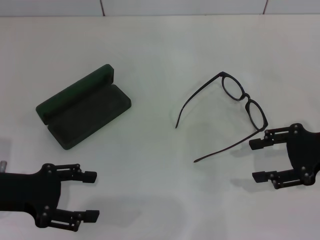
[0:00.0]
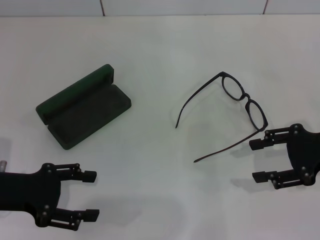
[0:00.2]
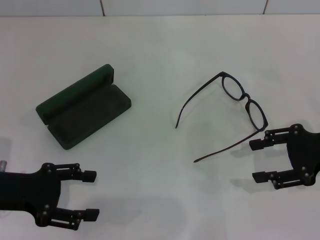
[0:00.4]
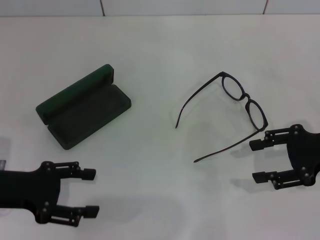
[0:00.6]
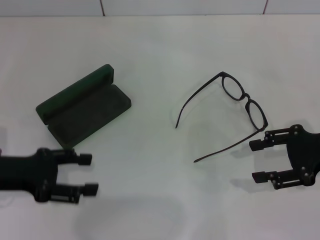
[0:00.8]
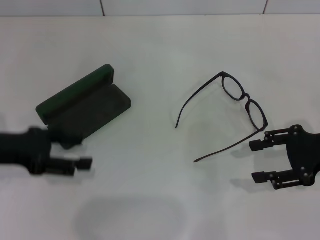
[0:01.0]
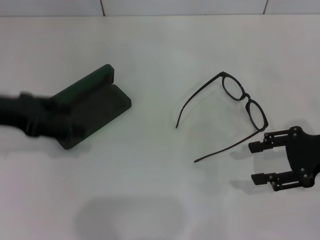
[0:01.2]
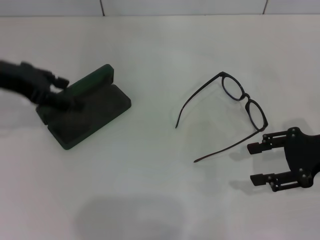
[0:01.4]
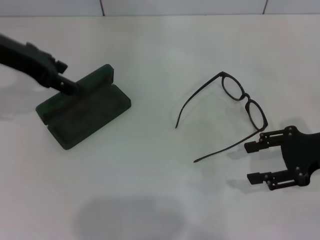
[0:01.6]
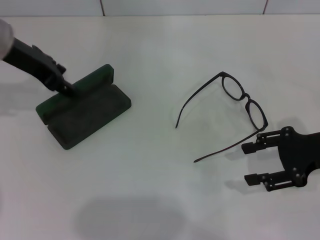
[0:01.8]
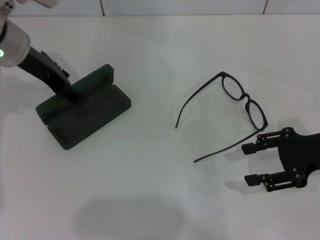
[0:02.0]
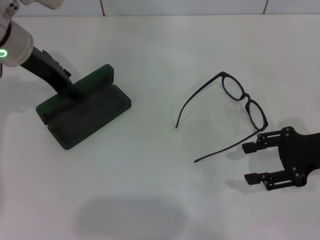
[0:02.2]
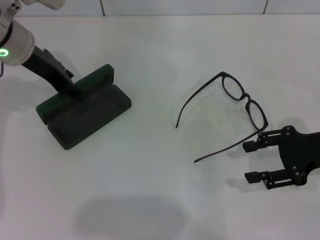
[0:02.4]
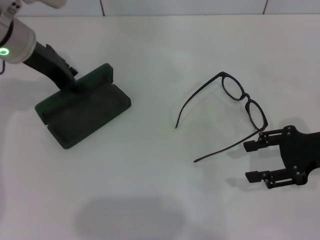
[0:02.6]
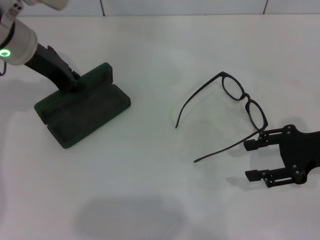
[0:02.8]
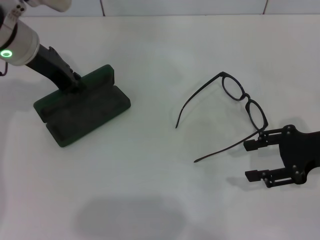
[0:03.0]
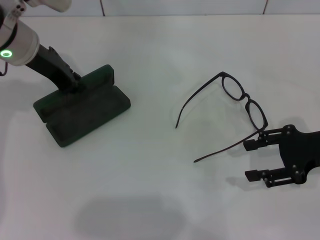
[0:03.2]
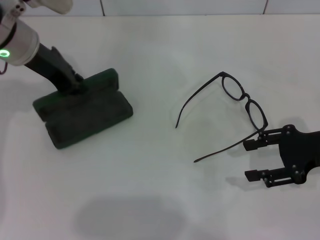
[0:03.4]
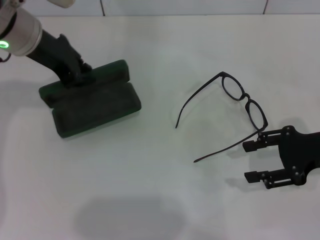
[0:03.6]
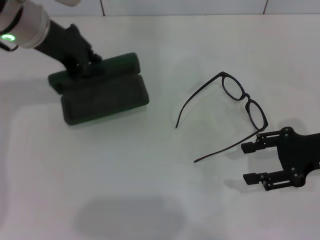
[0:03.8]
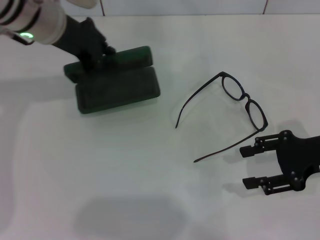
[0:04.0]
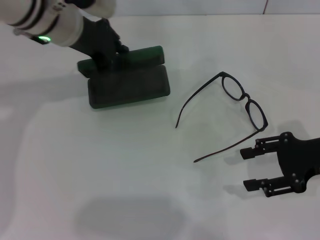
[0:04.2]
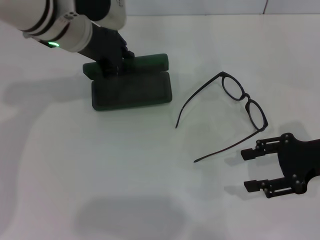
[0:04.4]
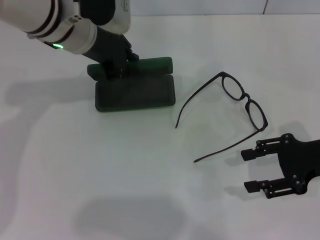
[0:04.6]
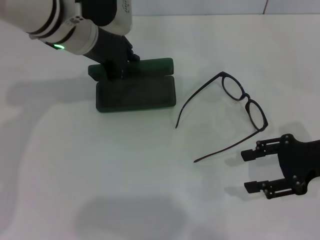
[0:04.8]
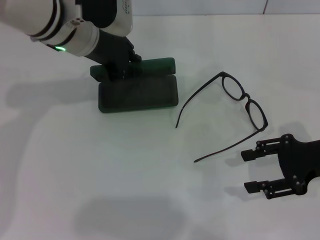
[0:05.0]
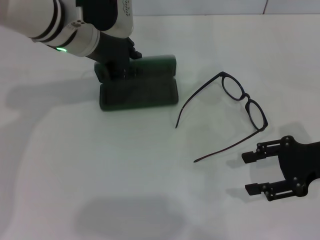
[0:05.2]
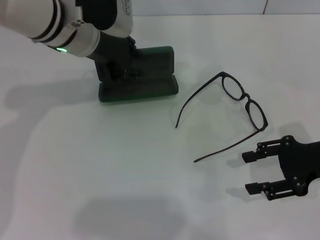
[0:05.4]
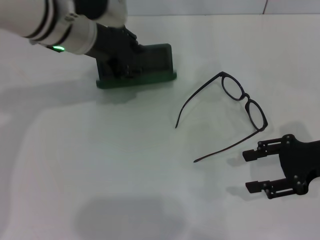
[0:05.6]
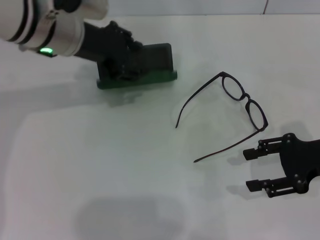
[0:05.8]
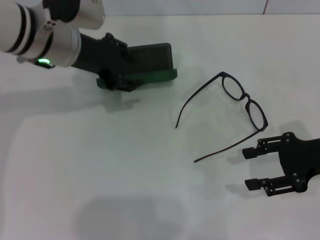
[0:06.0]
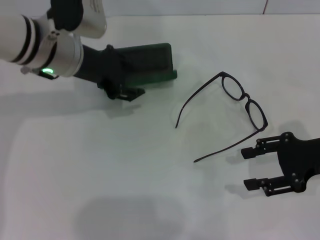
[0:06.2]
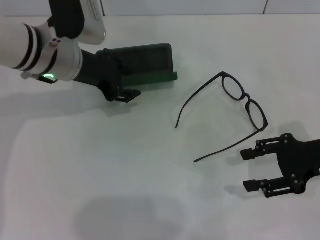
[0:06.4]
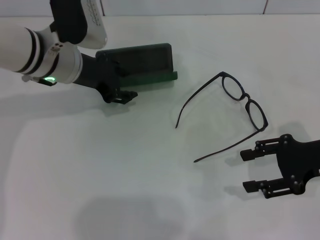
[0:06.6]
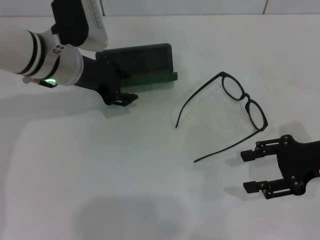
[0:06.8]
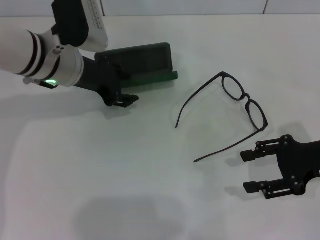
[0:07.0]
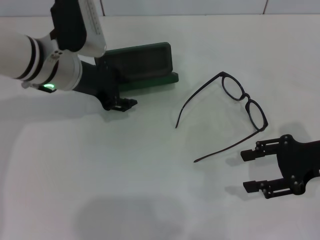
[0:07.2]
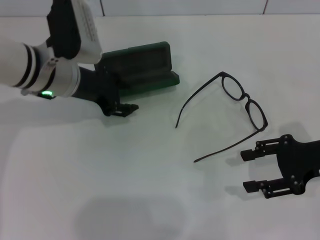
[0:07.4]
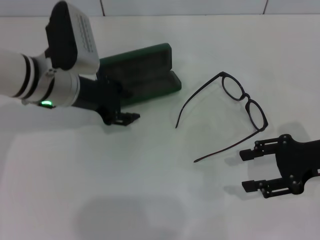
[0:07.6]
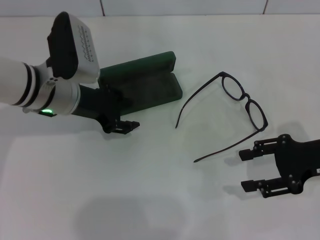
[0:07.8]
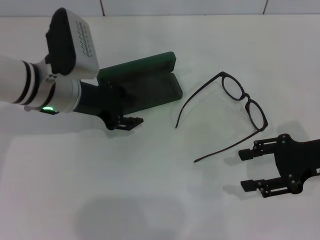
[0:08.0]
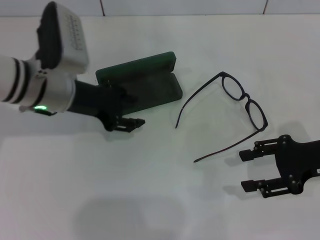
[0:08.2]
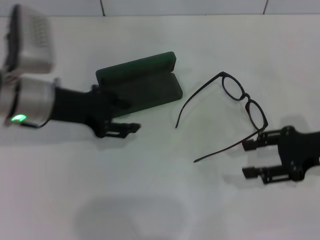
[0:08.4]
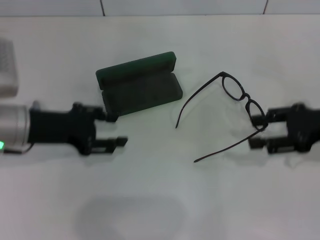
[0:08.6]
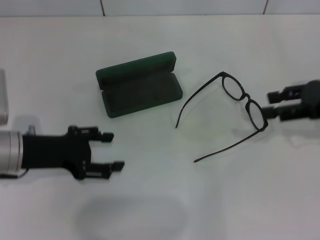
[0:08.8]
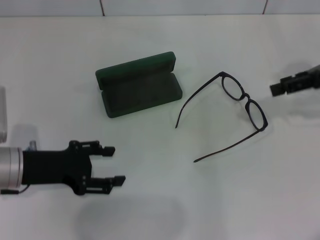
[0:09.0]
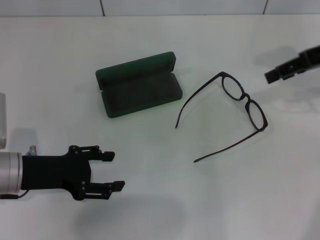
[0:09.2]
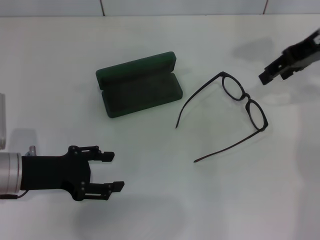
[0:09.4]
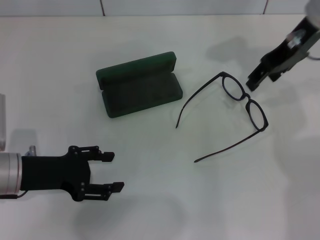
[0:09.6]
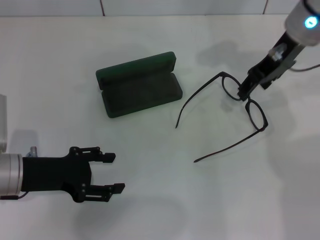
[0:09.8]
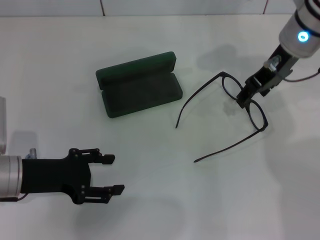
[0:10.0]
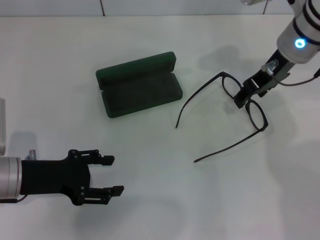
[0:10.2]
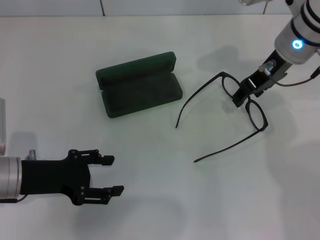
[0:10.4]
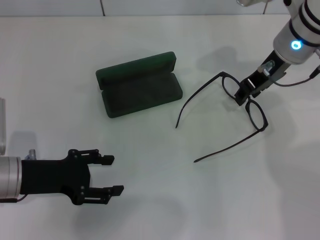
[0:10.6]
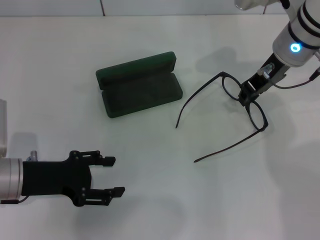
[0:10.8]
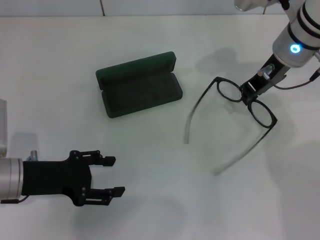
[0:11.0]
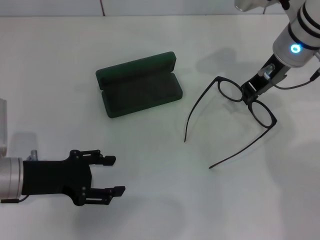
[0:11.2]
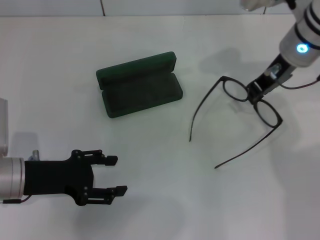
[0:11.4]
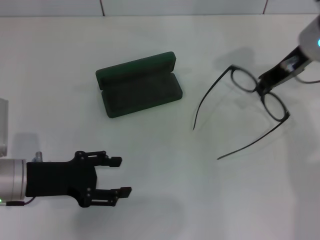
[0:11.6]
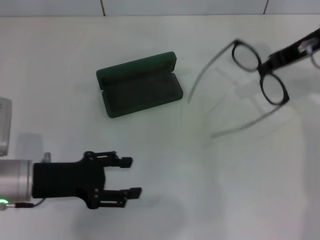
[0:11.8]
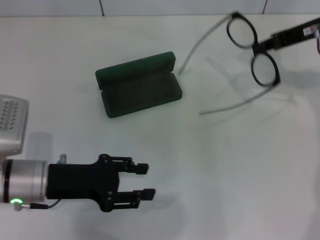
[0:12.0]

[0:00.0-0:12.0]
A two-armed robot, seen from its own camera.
Step, 0.0 to 3.2 s: Grab the glasses case with your left hand.
Step, 3.4 to 7.8 s: Place the glasses case in the center of the table with your left hand.
Step, 8.0 to 11.2 s: Grab the eyeglass frame with your right hand.
0.0 to 1.6 s: The left gripper heads forward and upward, covering about 20 cm.
1.6 to 3.0 s: The left gripper changes place by roughly 5 cm, and closes.
3.0 to 4.4 s: The left gripper heads to the right, covering some 5 cm.
4.4 to 6.0 s: The left gripper opens.
6.0 to 7.6 s: The left gripper moves downward, some 5 cm.
7.6 to 9.0 s: The left gripper shifts some 15 cm backward and to the left, while the right gripper moves upward and forward, some 15 cm.
9.0 to 10.4 s: The right gripper is displaced to the left by some 15 cm.
10.4 to 12.0 s: The right gripper travels to the right by about 10 cm, and closes up.

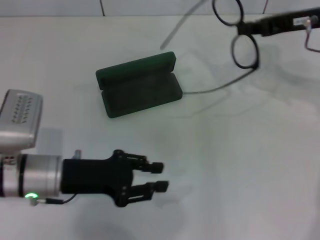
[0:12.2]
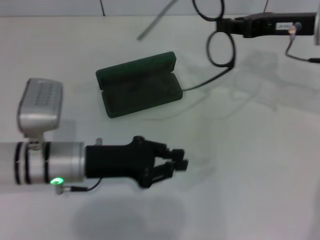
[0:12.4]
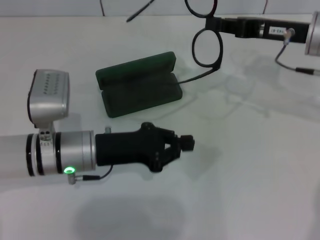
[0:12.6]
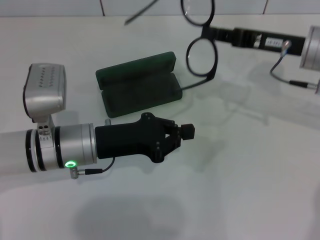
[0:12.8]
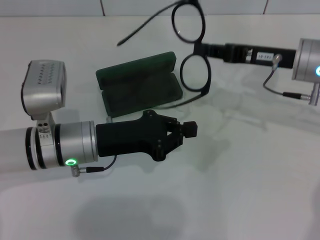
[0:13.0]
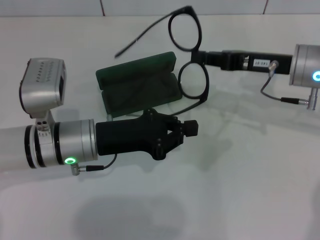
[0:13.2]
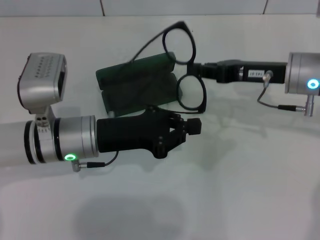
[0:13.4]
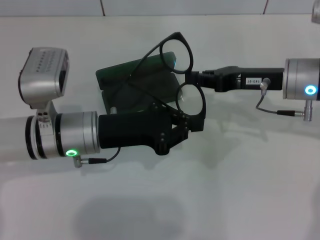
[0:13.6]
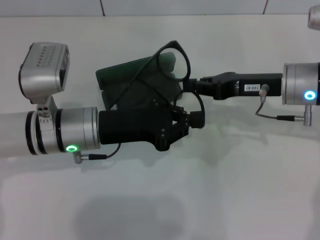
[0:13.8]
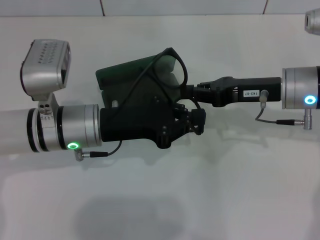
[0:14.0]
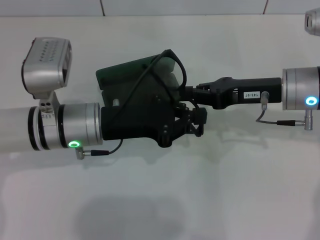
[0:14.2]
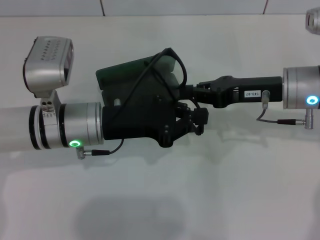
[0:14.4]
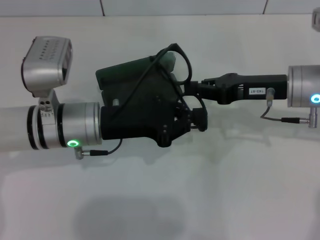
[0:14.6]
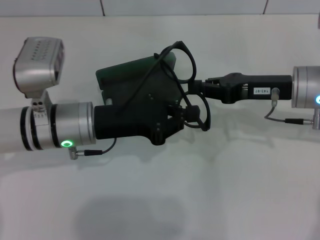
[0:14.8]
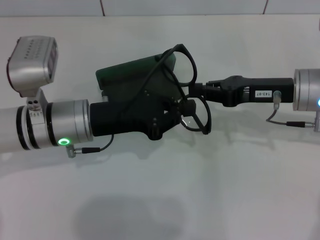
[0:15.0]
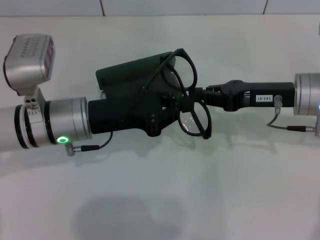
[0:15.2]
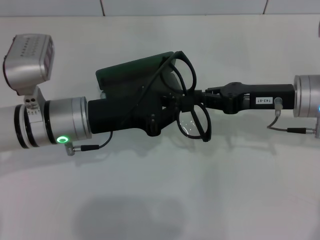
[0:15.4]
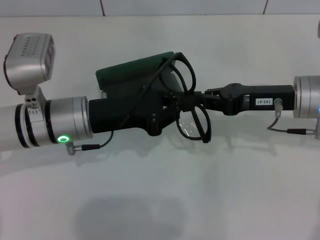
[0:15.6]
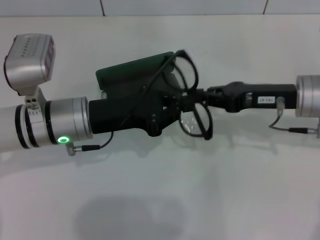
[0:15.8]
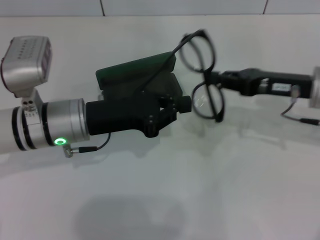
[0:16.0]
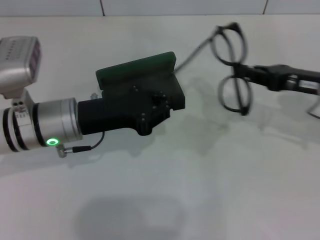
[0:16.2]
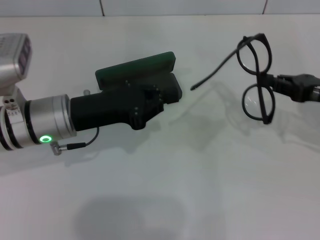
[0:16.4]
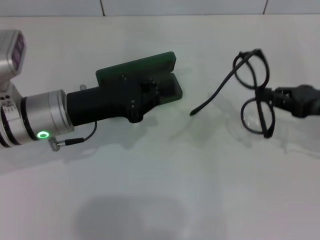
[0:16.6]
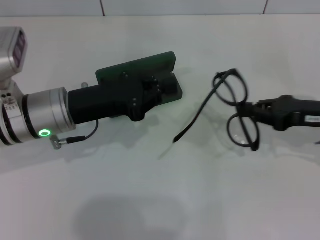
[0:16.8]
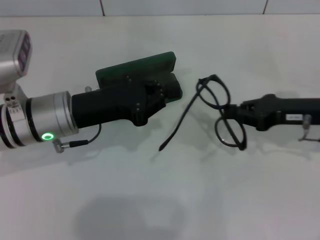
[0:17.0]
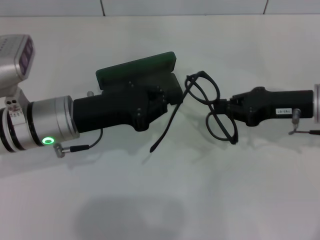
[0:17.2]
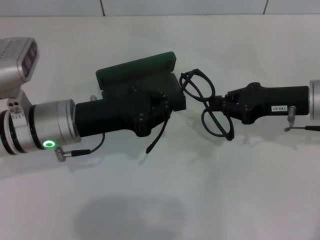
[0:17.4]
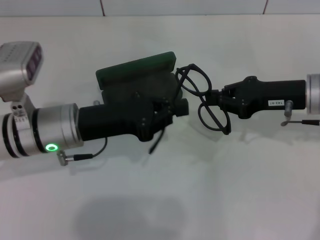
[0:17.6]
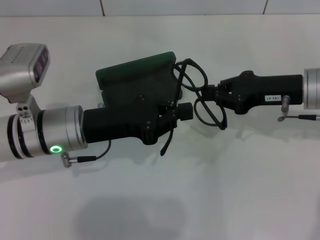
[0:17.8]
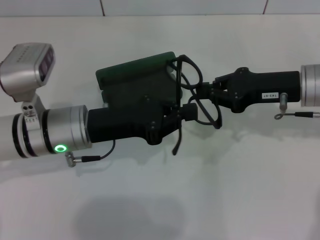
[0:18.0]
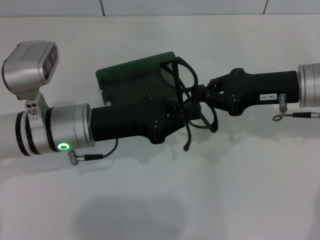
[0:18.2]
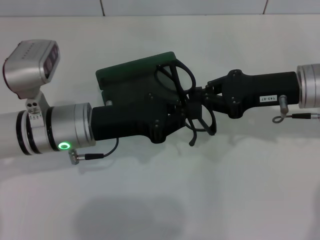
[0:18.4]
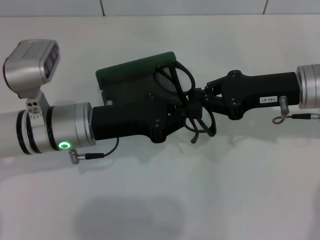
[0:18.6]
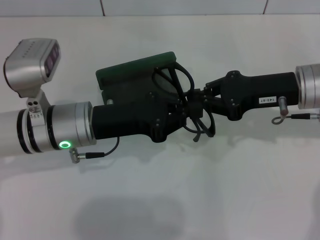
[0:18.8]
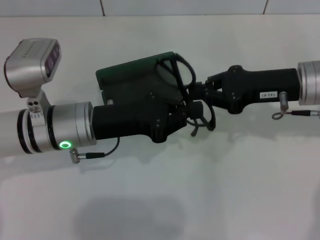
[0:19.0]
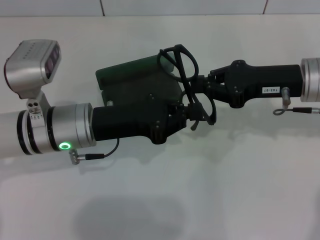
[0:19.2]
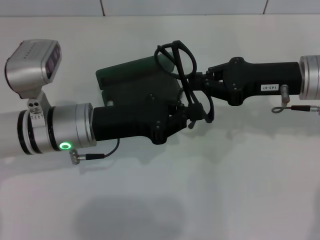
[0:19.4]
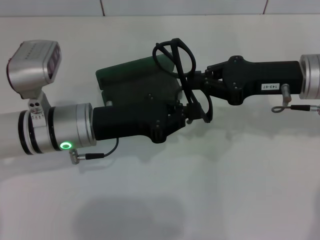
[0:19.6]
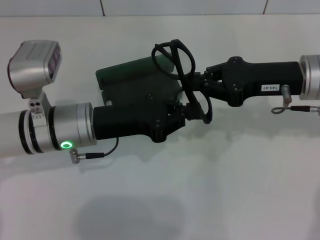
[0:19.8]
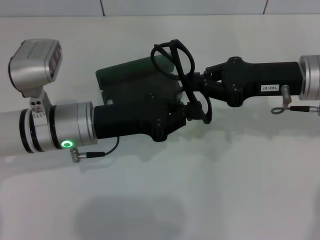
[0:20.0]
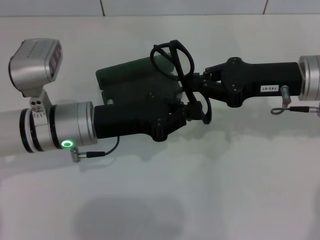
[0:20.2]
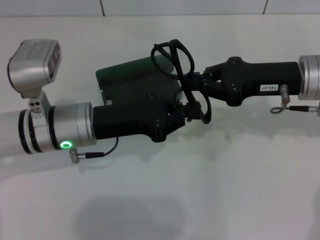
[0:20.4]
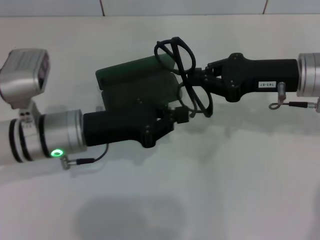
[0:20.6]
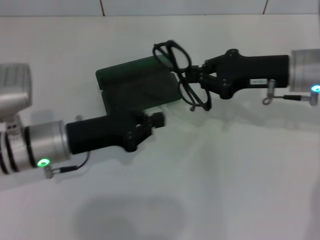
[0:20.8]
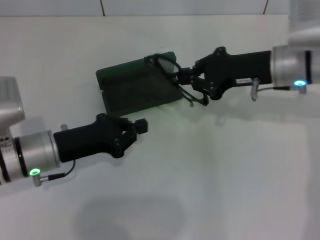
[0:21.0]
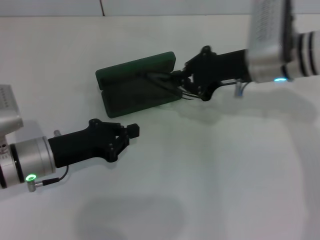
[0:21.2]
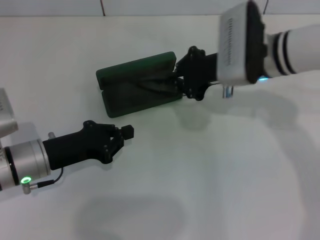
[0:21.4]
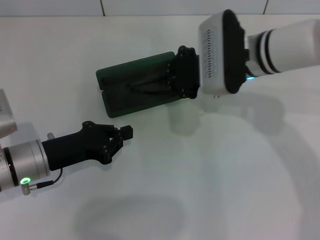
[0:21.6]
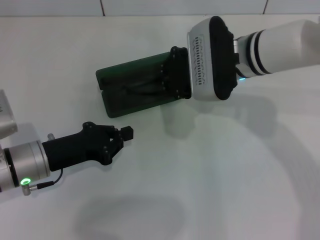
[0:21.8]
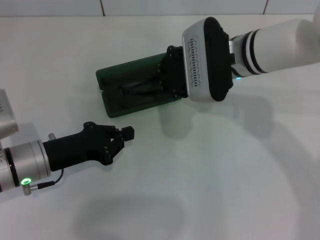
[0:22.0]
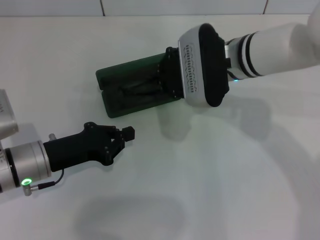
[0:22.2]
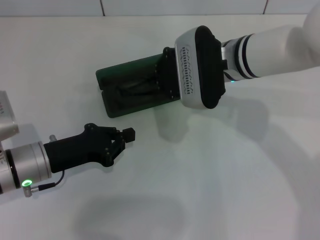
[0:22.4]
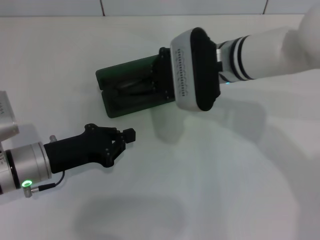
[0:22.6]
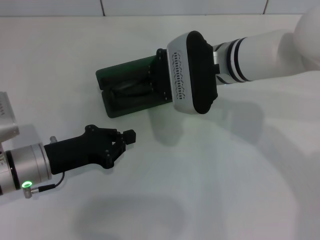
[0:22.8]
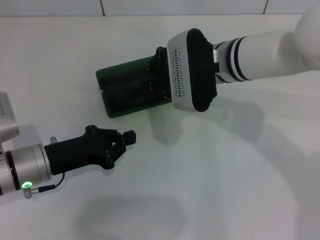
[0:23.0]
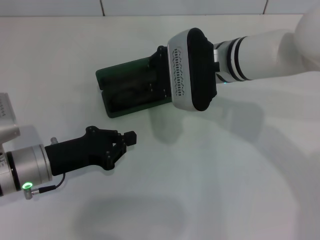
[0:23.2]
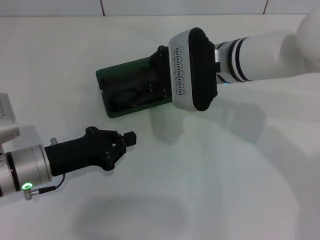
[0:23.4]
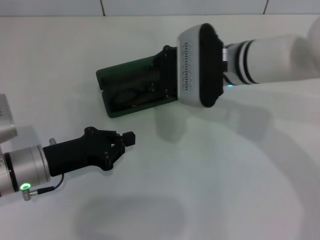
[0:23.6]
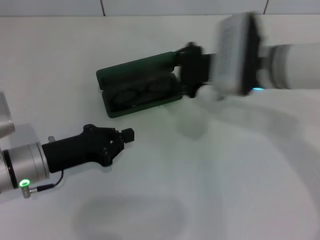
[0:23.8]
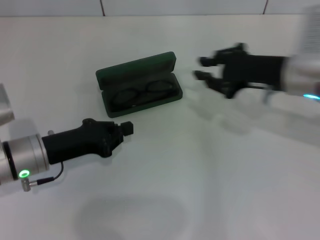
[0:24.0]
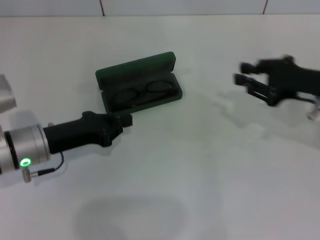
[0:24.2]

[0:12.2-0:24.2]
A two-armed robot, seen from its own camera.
Step, 12.2 to 20.2 s: Lift the glasses with your right hand.
Step, 20.4 to 23.2 s: Put the glasses into the case with your right hand.
12.2 to 13.8 s: The left gripper travels to the right by roughly 5 cm, and closes. Meanwhile the right gripper travels downward by approximately 10 cm.
13.8 to 15.2 s: The grippers make only small movements.
15.2 to 16.6 s: The right gripper heads to the right, covering roughly 10 cm.
16.6 to 18.2 s: The right gripper goes approximately 10 cm to the left.
18.2 to 19.8 s: There are only small adjustments of the grippers.
19.8 to 21.2 s: The right gripper shifts approximately 5 cm to the left; the left gripper moves to the left and downward, approximately 10 cm.
21.2 to 22.6 s: The right gripper moves to the left, some 10 cm.
22.6 to 24.2 s: The right gripper is displaced to the right by about 20 cm.
